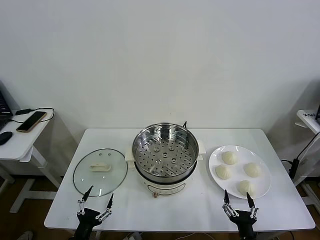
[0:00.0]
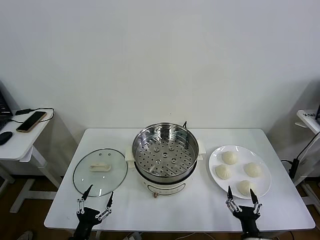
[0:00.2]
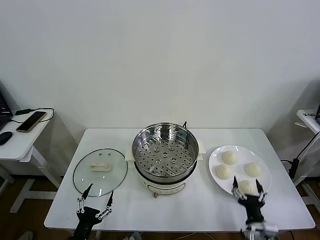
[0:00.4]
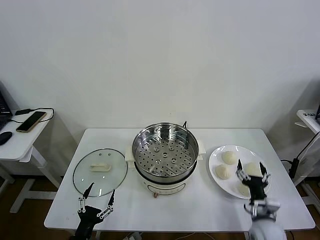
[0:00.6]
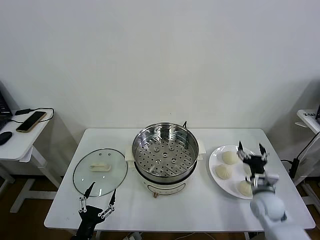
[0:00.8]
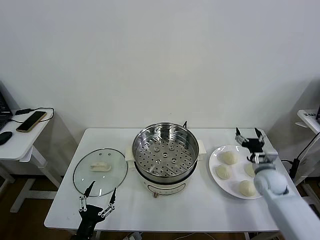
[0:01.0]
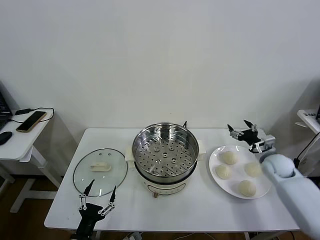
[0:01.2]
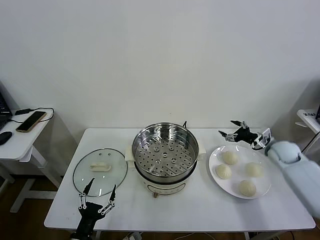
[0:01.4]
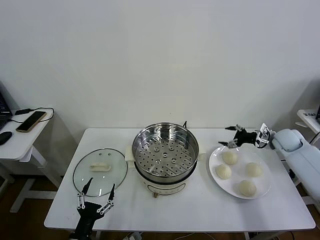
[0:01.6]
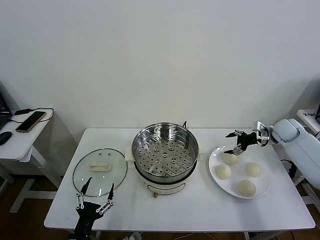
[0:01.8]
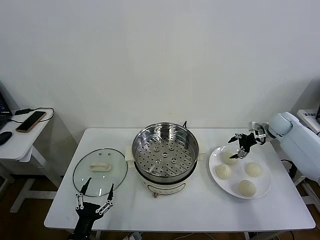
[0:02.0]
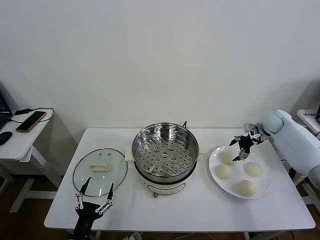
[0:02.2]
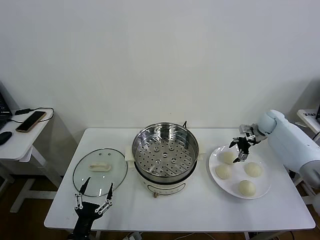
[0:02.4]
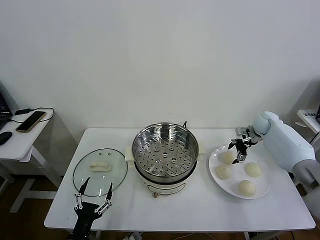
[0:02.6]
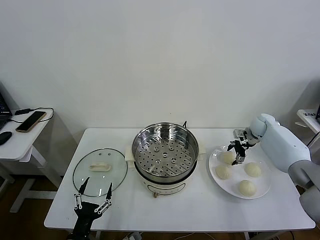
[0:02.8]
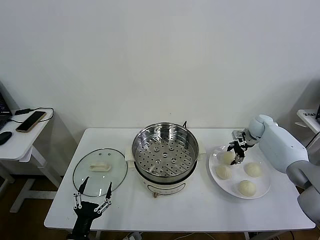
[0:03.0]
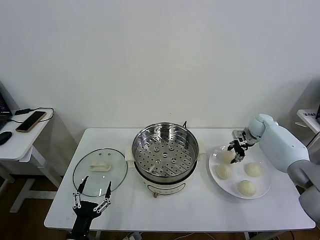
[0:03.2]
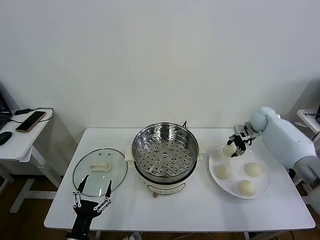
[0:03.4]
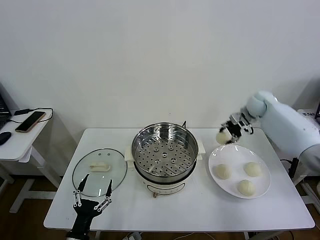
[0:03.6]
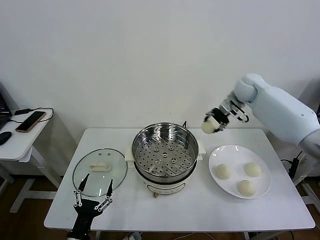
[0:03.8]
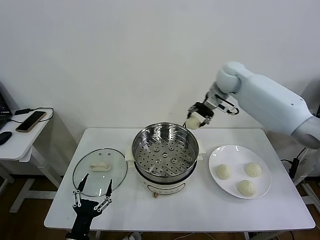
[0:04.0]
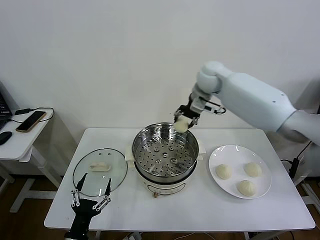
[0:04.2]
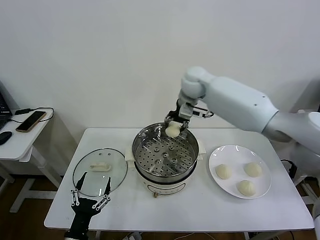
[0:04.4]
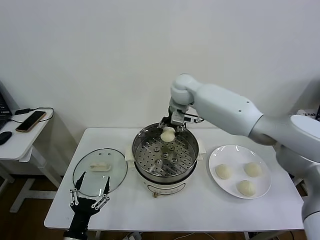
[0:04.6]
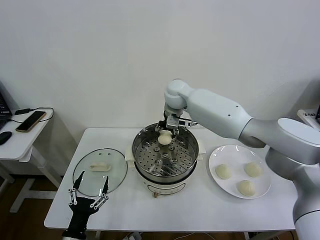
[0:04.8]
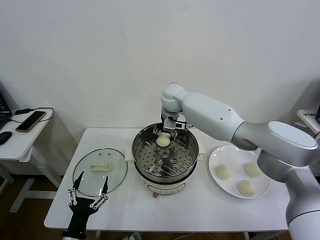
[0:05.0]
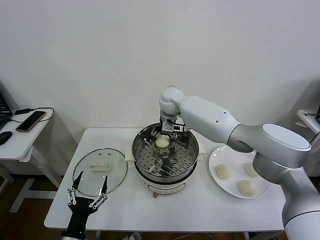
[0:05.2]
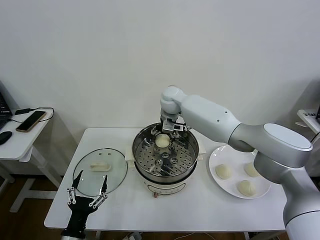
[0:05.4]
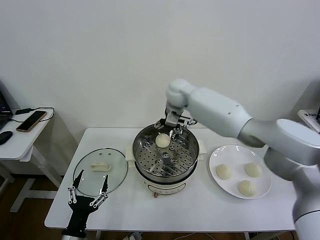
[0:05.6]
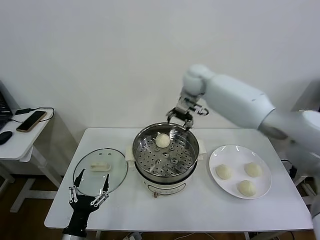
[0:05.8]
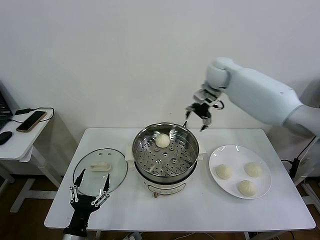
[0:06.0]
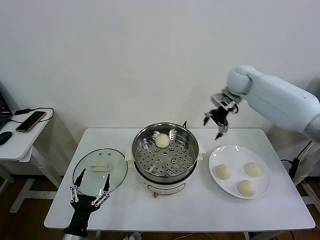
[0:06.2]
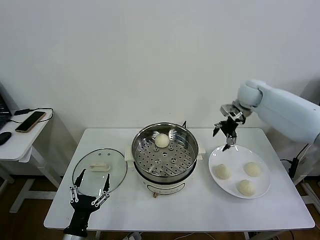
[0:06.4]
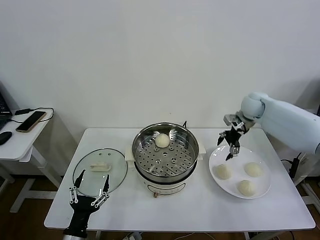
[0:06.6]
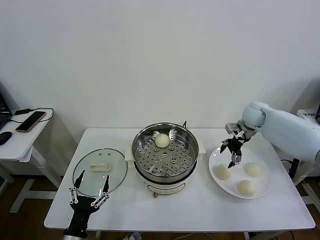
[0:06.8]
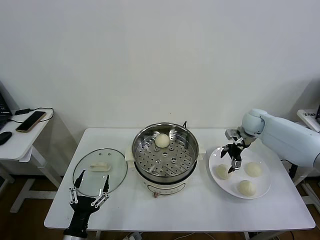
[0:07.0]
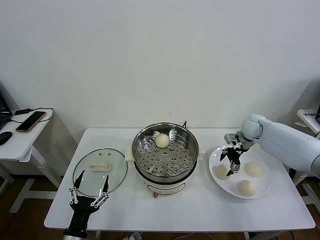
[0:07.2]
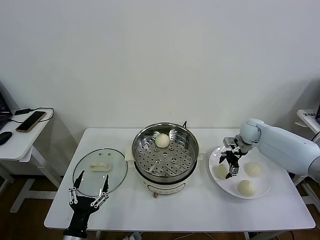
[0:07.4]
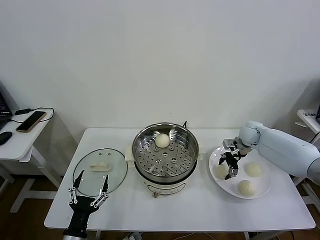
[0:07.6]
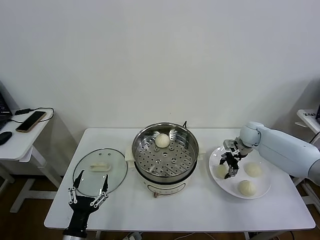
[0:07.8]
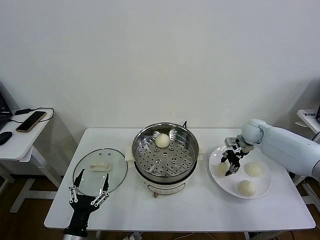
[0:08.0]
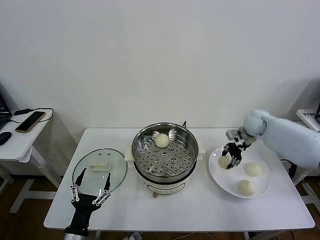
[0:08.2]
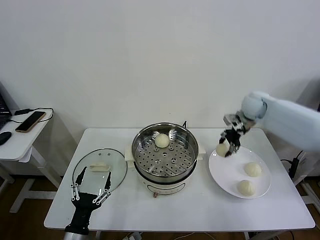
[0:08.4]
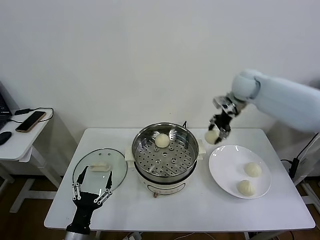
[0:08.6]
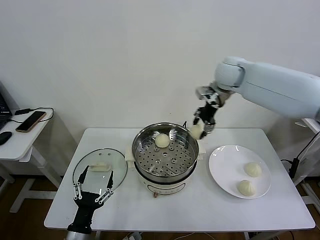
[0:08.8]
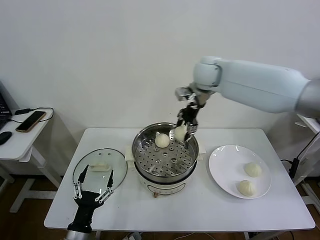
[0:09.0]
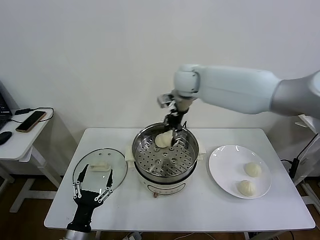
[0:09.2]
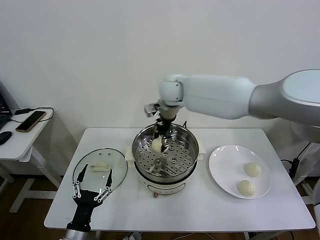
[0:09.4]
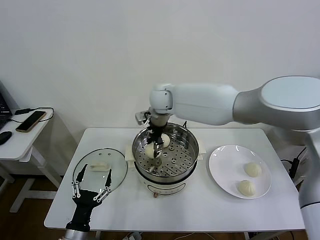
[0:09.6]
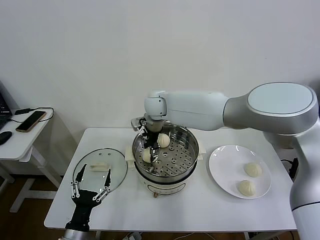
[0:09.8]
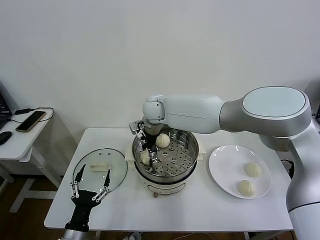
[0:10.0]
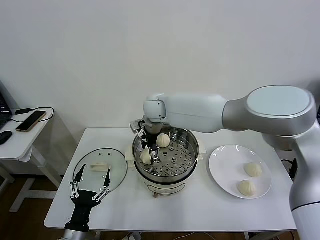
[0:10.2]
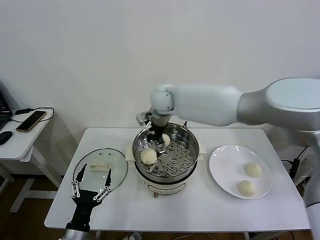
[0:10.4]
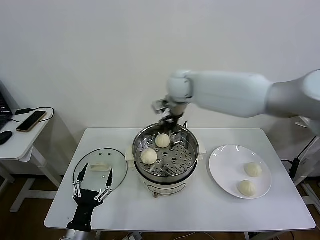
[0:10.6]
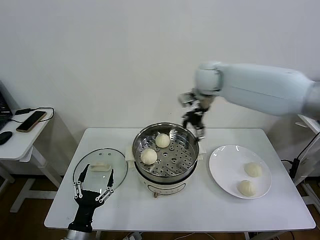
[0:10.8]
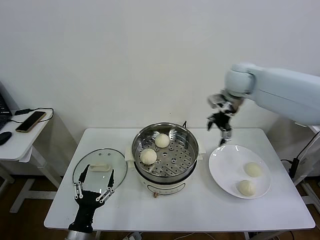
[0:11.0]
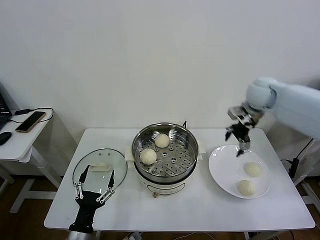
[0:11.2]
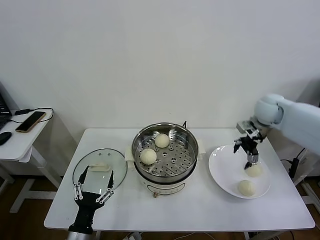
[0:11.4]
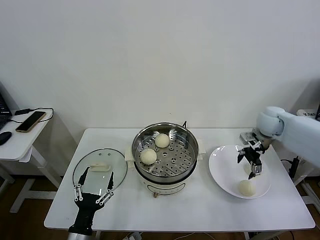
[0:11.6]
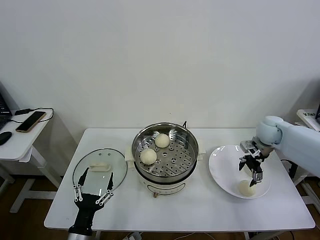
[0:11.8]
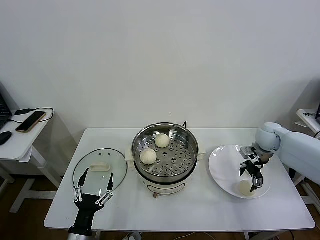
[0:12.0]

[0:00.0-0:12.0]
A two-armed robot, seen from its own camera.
Task of the whole recording: take steamed baozi put them in steamer then cover it.
Step, 0.0 to 3.0 s: Grasp the baozi in the plate with right gripper.
Step, 3.4 to 5.2 s: Place the baozi on the steamer with right gripper.
Step, 5.4 to 7.8 s: Grasp the baozi in the plate with right gripper.
Step, 8.0 to 10.0 s: Place the baozi on the steamer with right gripper.
1.6 to 3.0 s: The right gripper travels forward and to the left by roughly 10 cm, and closes.
3.0 to 4.4 s: The right gripper goes roughly 40 cm to the left and upward.
4.4 to 6.0 s: The right gripper travels to the right by about 15 cm, and opens its fingers.
6.0 to 7.6 s: The right gripper travels downward and to the right by roughly 25 cm.
7.6 to 9.0 s: The right gripper travels to the left and upward by roughly 35 cm, and closes its fingers.
9.0 to 10.4 s: The right gripper goes roughly 10 cm to the left and downward, and opens.
10.4 to 12.0 s: The right gripper travels to the right and downward by roughly 40 cm.

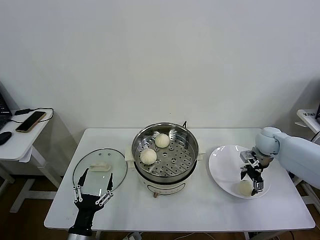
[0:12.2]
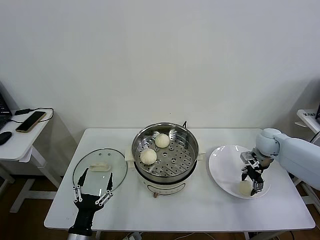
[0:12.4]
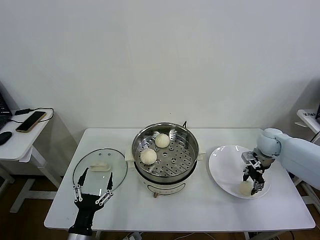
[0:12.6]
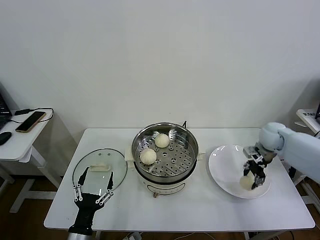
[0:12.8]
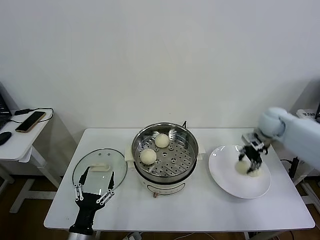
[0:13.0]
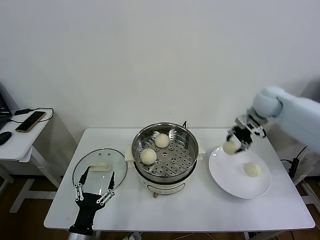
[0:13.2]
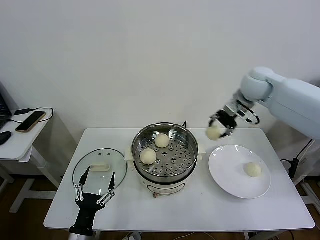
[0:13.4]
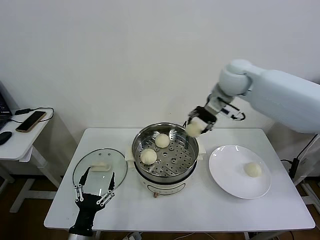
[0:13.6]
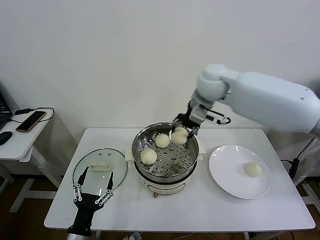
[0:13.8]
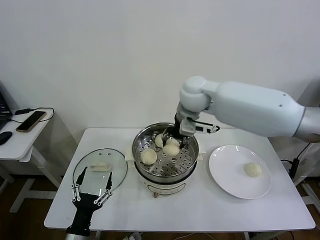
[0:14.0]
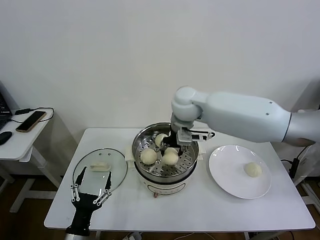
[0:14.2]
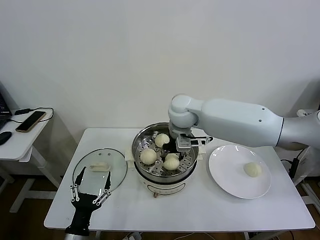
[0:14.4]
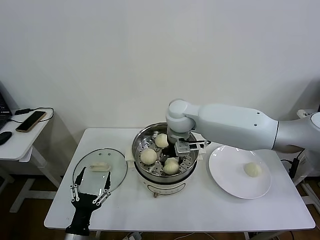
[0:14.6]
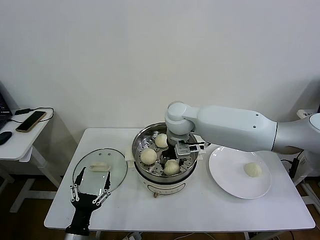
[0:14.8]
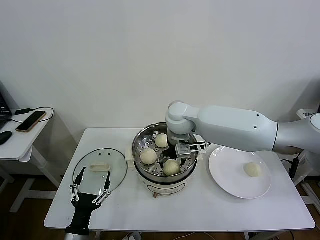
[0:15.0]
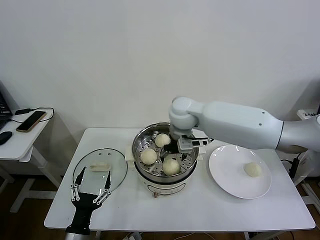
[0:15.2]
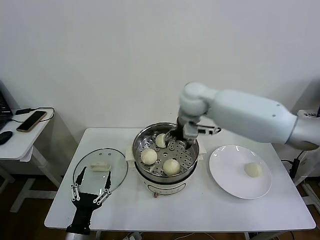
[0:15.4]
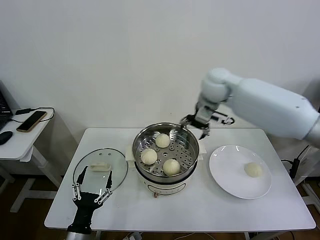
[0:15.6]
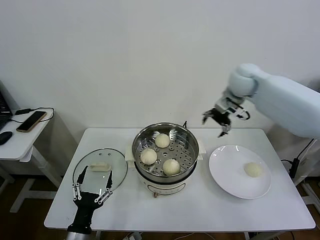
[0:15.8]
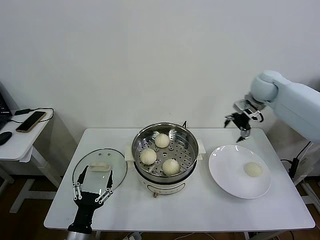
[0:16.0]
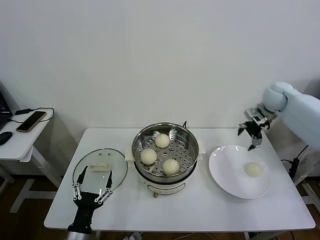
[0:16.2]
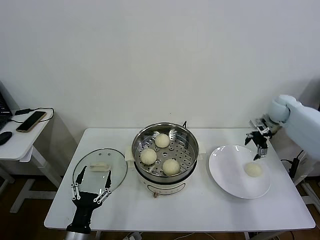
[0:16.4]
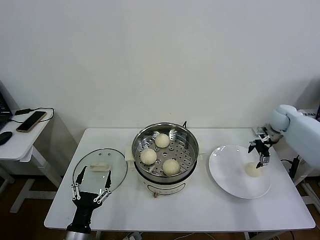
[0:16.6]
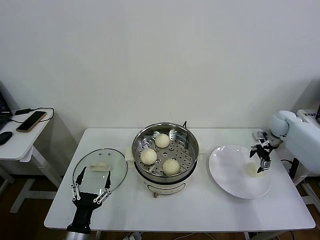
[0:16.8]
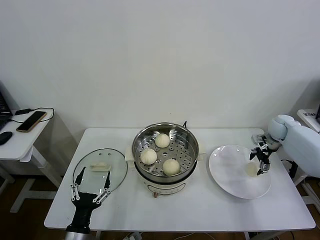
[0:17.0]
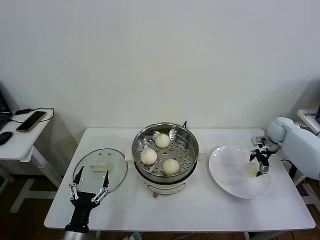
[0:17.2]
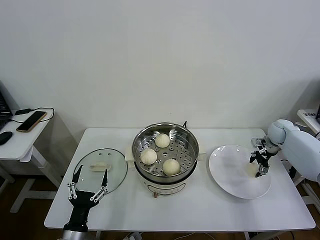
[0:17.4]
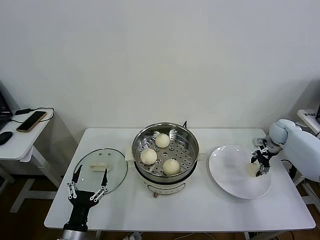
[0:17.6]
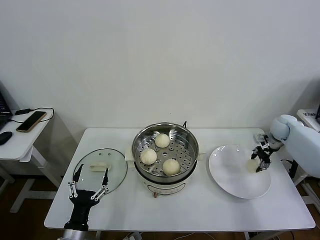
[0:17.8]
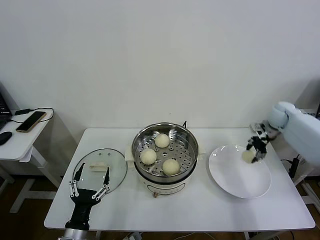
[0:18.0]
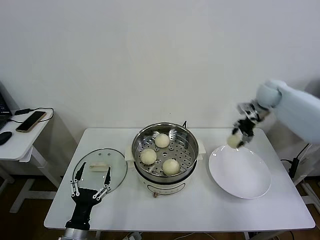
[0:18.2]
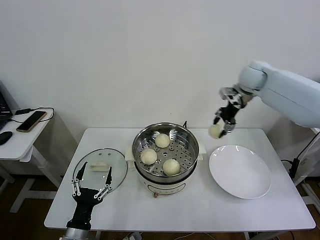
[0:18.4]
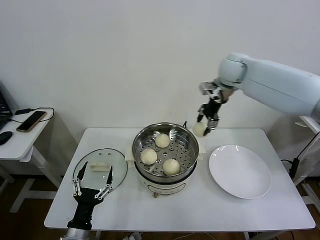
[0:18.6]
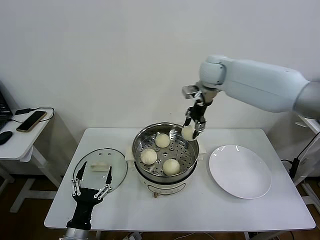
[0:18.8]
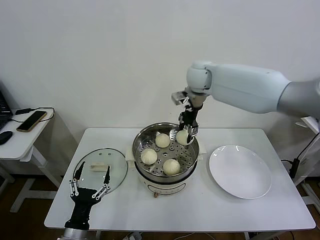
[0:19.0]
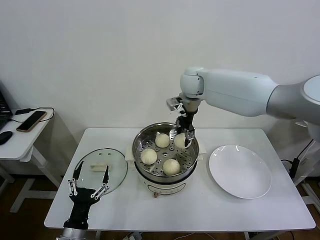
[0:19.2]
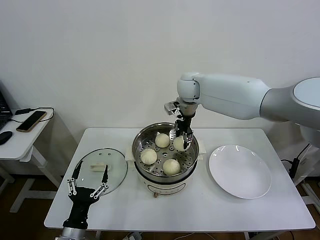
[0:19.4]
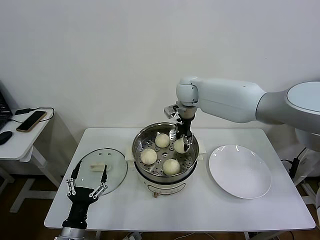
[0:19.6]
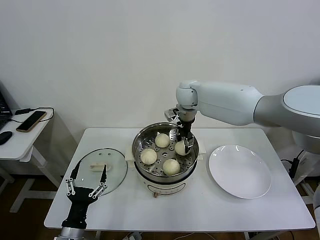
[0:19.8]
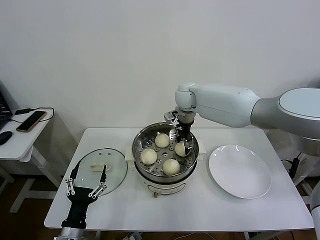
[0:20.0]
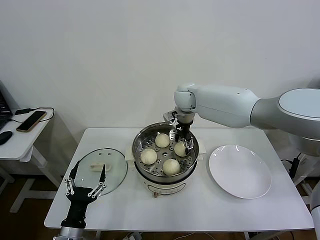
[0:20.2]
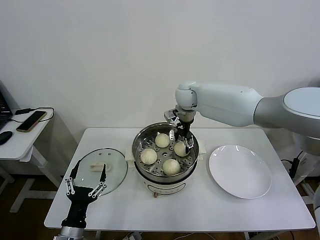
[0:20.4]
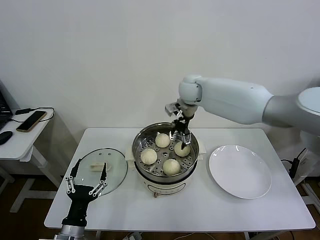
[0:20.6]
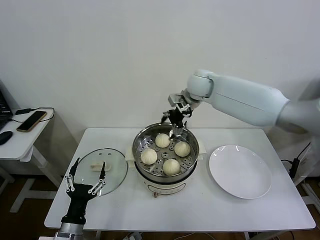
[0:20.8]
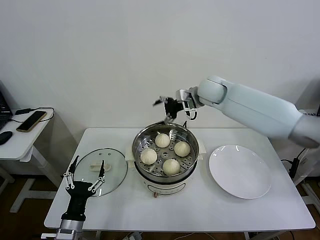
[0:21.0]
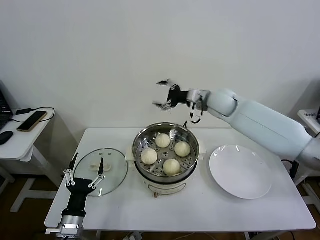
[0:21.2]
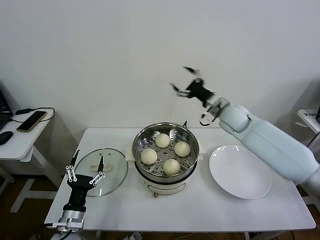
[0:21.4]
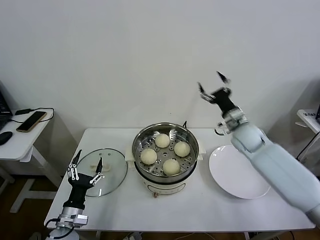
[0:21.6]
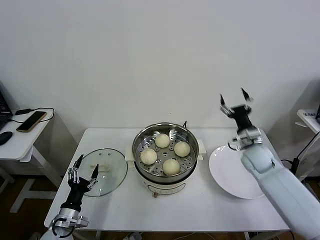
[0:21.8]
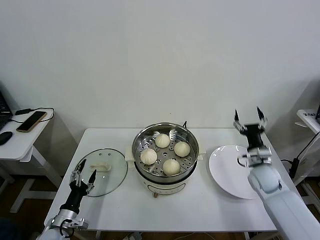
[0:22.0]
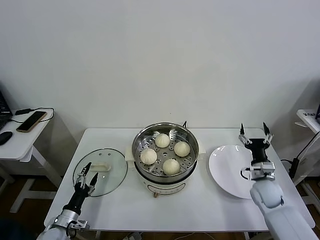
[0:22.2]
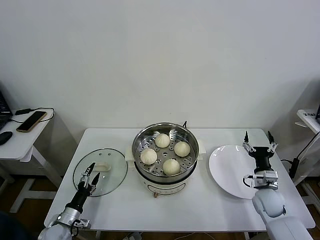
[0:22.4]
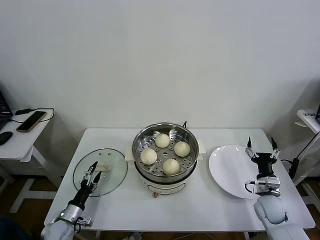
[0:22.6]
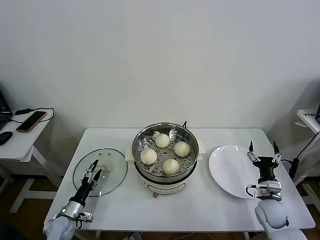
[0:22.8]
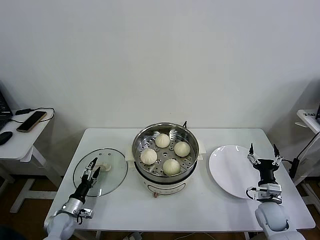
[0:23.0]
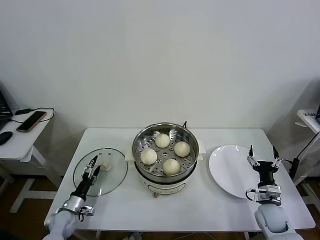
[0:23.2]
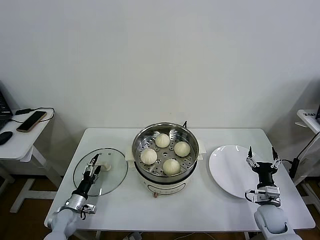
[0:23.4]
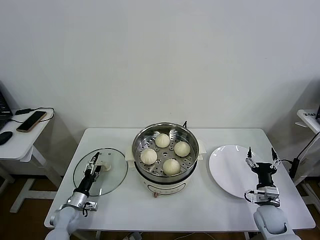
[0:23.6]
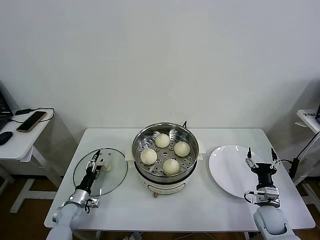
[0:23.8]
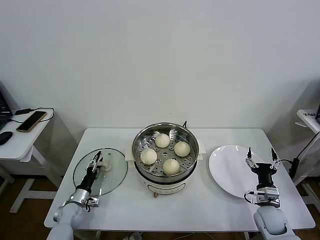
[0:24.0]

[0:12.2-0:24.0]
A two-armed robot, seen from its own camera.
Task of the whole recording: take steamed baozi put them in steamer then cover it.
Step, 12.8 to 15.0 s: Place the baozi on the steamer with right gripper.
Step, 15.2 to 17.6 s: Grasp the baozi in the plate with right gripper.
Step, 17.8 to 20.2 s: Place the baozi on the steamer with right gripper.
12.2 to 13.6 s: The right gripper is displaced upward and to the left by some 30 cm, and closes up.
13.6 to 15.2 s: The right gripper goes approximately 15 cm to the left and downward, and opens.
15.2 to 16.6 s: The right gripper is displaced to the right by some 40 cm.
16.6 to 18.2 s: The right gripper shifts some 15 cm upward and to the left, and closes up.
18.2 to 19.6 s: The right gripper travels to the left by approximately 30 cm.
19.6 to 21.0 s: The right gripper travels to the right by about 5 cm, and opens.
21.0 to 22.6 s: The left gripper heads downward, to the left and forward, covering some 20 cm. The right gripper goes approximately 50 cm downward, backward and to the right.
22.6 to 24.0 s: The left gripper heads forward, covering some 10 cm.
